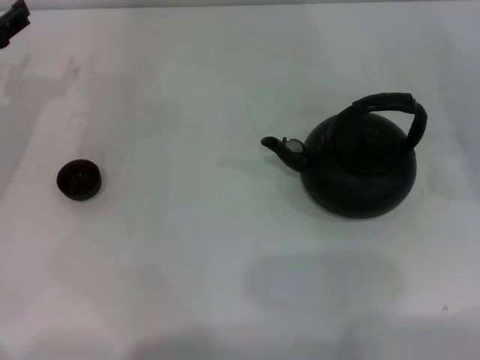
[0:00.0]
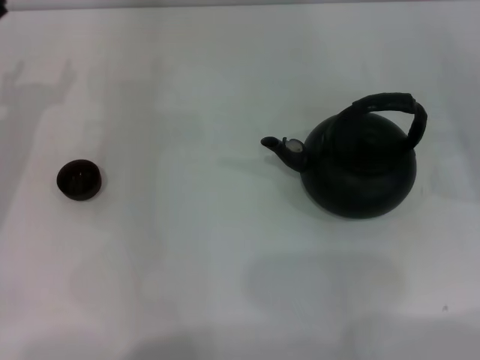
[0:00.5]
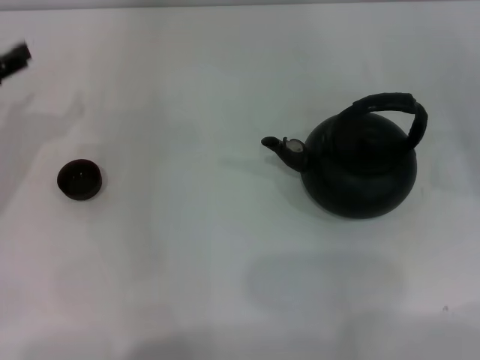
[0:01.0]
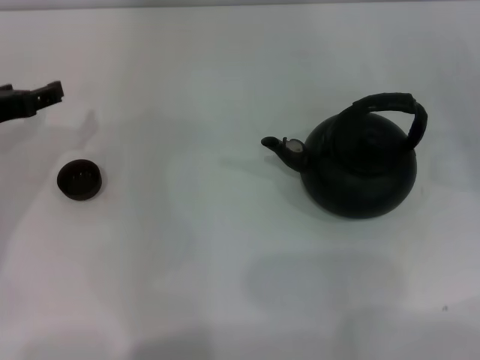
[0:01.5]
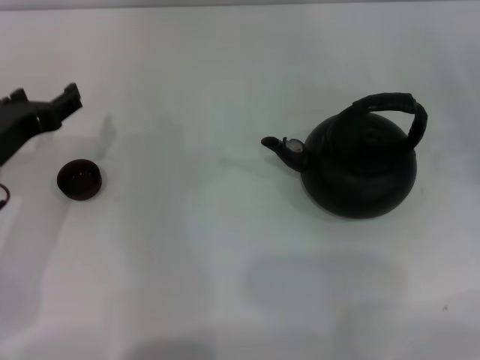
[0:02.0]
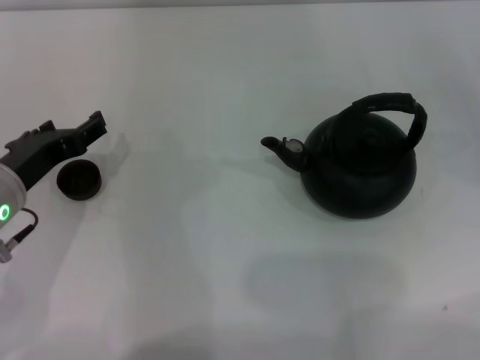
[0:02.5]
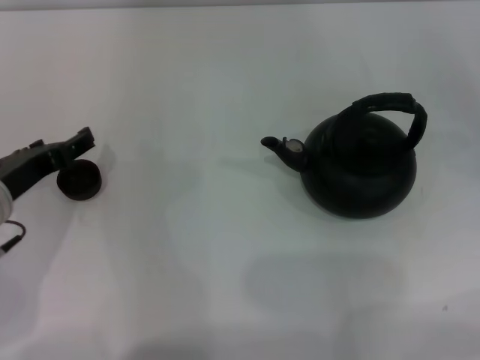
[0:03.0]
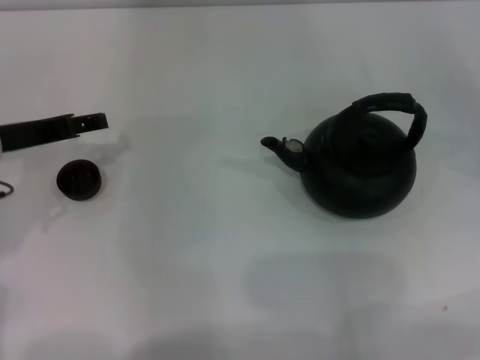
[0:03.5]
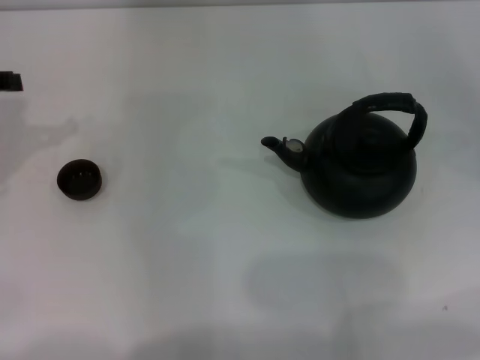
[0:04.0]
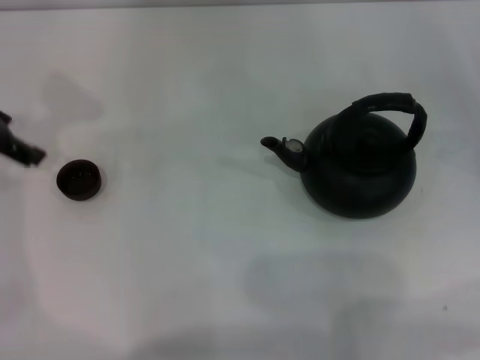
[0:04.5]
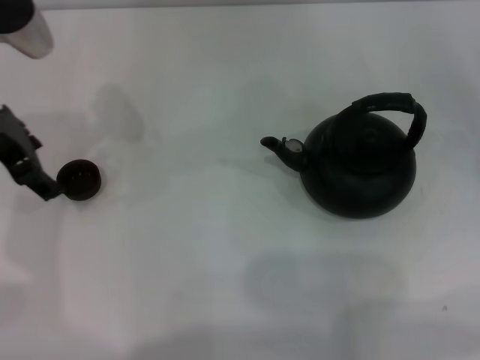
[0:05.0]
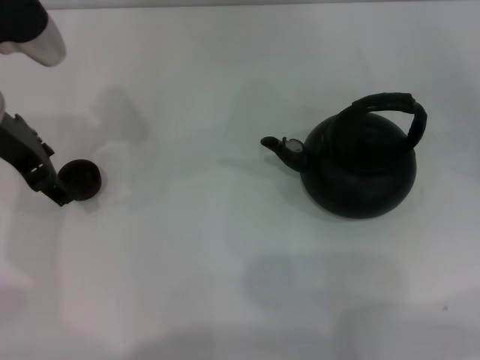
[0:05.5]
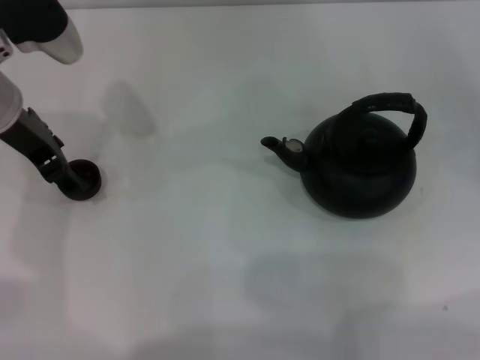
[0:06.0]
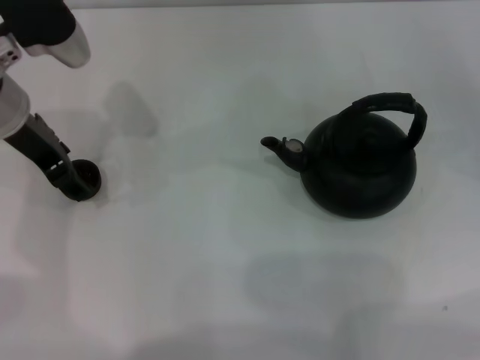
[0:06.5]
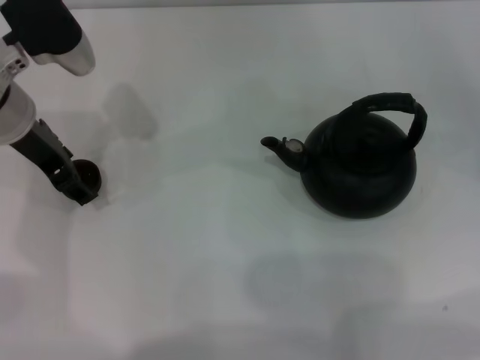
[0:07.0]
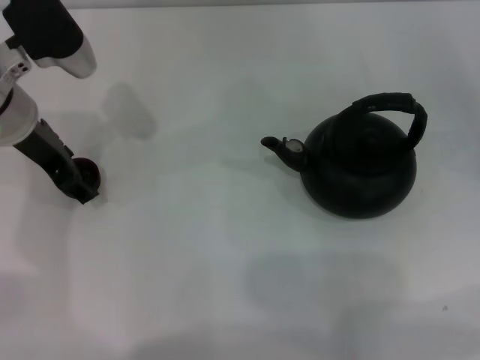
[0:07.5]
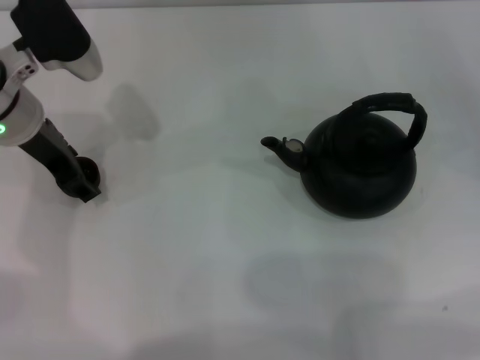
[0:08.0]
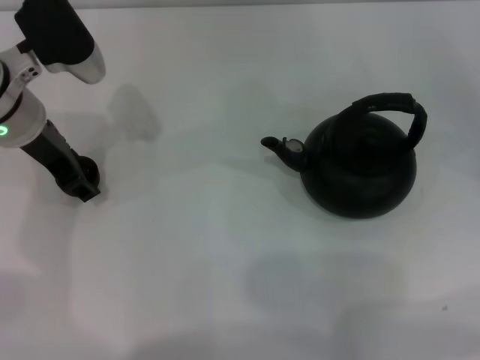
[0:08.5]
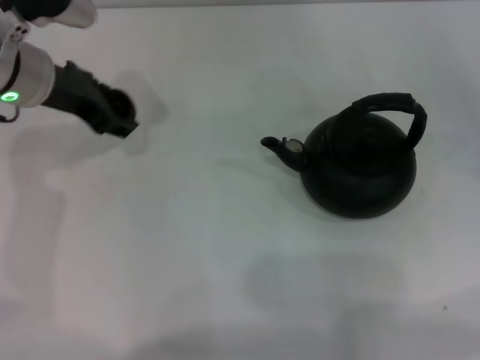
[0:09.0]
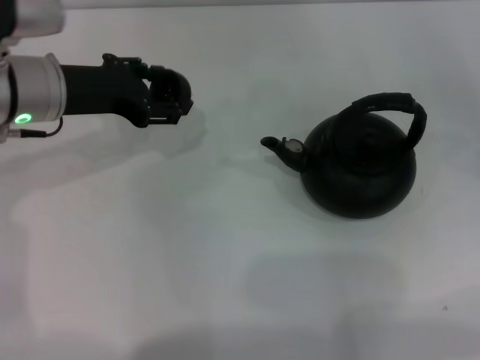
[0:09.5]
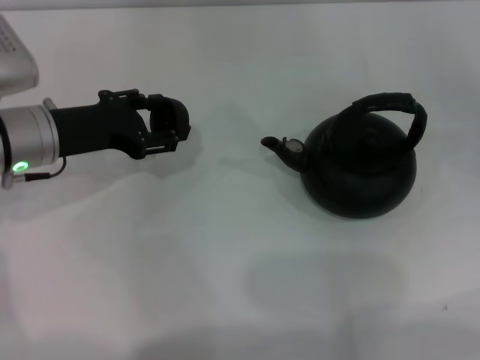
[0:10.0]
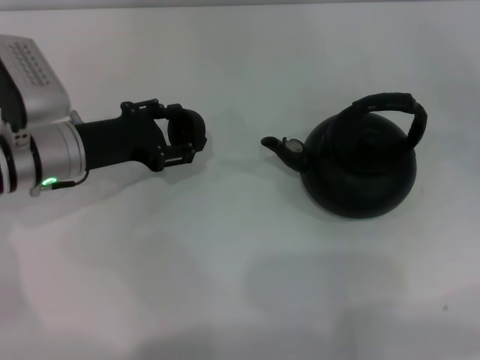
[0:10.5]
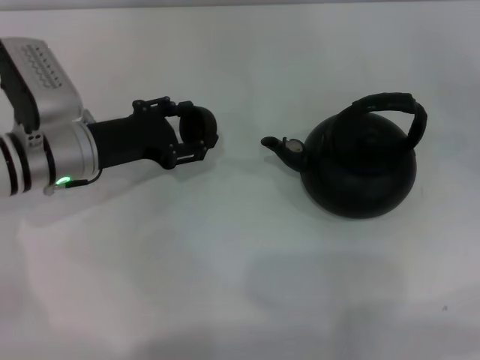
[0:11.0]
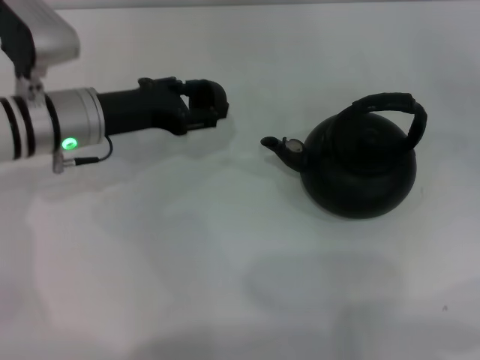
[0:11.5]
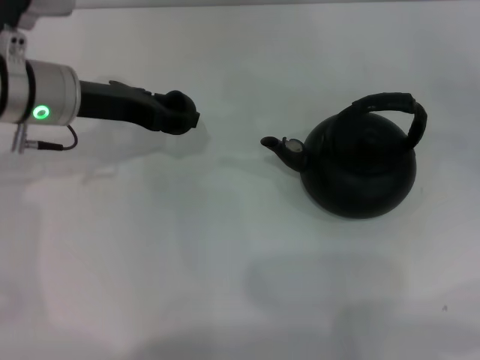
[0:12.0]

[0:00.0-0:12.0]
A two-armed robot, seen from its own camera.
Task of the whole recording: Grasp the handle of the teapot with one hand and pour tea into the teacup.
Step, 0:00.0 to 0:08.5: Pick up the teacup with the left gripper.
0:00.0 to 0:02.0: The left gripper travels backward and to the right by roughly 10 cm.
0:02.0 to 0:04.0: The left gripper moves upward and to the left, about 10 cm.
0:04.0 to 0:06.0: The left gripper moves to the right, some 10 cm.
0:06.0 to 0:08.0: The left gripper closes up.
0:08.0 to 0:10.0: The left gripper ends up approximately 5 cm from where it was.
0:10.0 to 0:12.0: The left gripper moves approximately 5 cm.

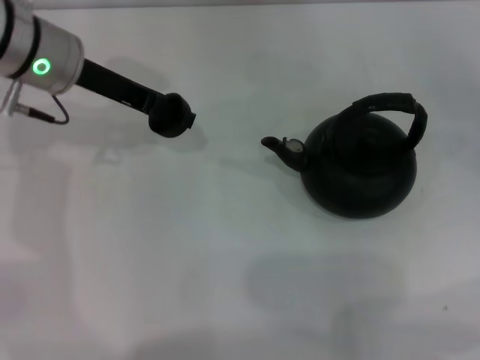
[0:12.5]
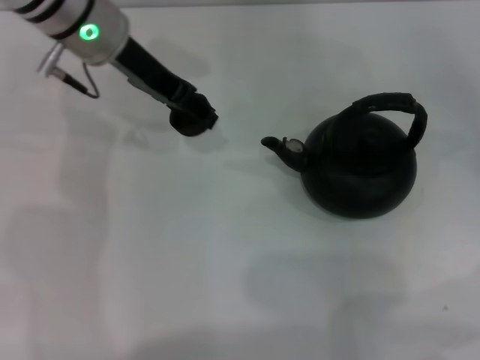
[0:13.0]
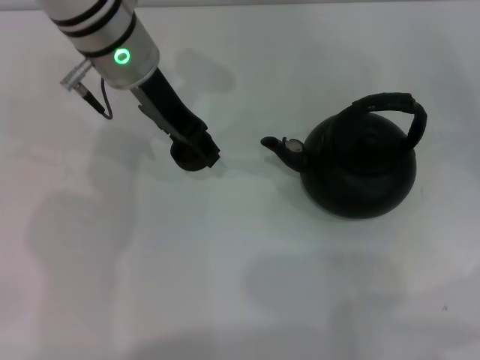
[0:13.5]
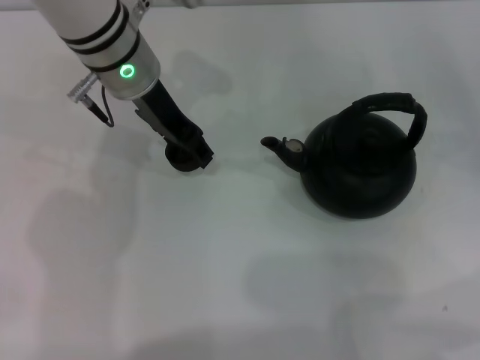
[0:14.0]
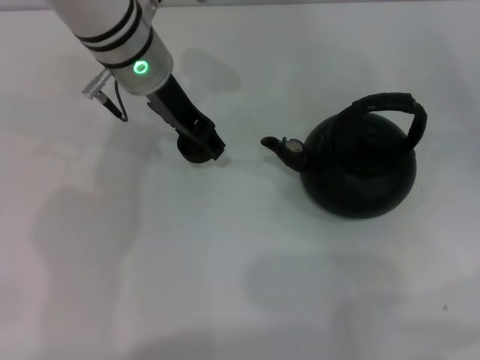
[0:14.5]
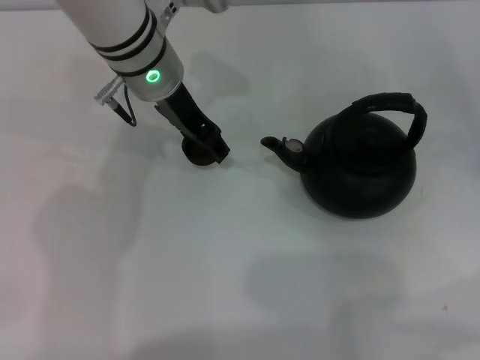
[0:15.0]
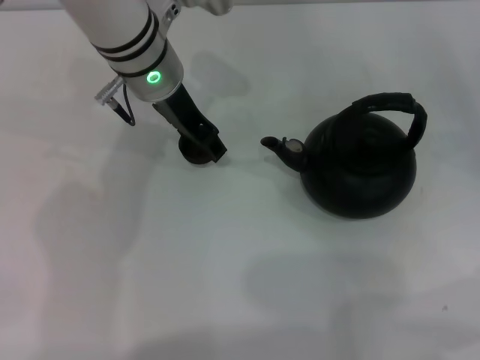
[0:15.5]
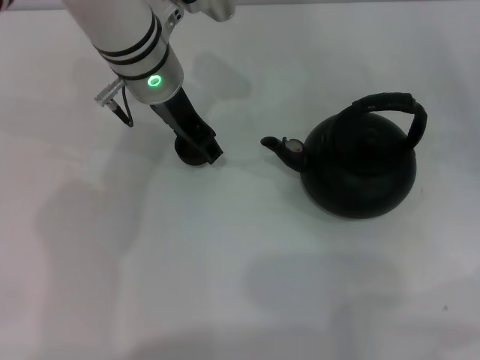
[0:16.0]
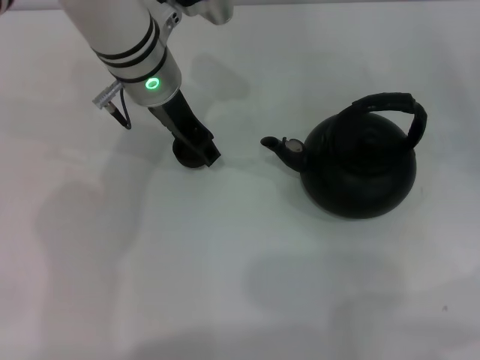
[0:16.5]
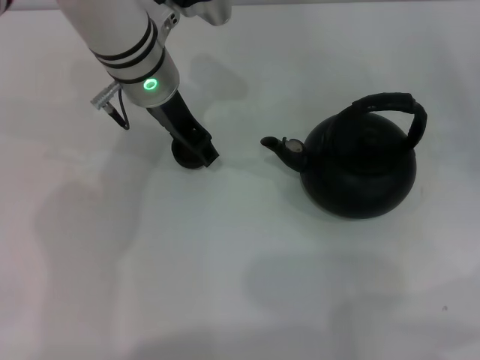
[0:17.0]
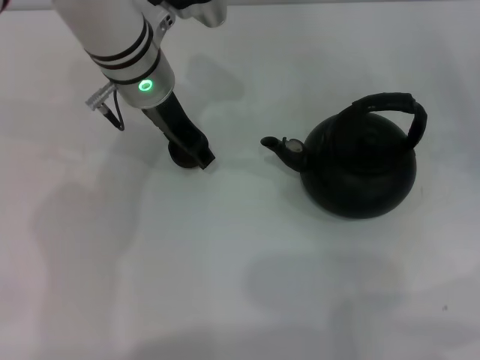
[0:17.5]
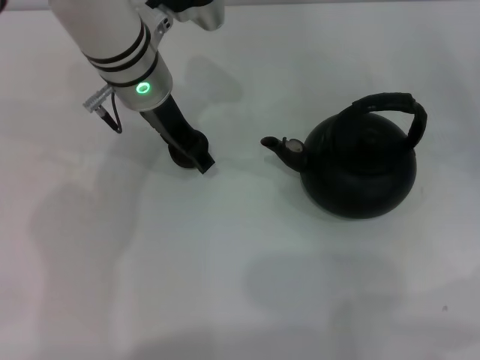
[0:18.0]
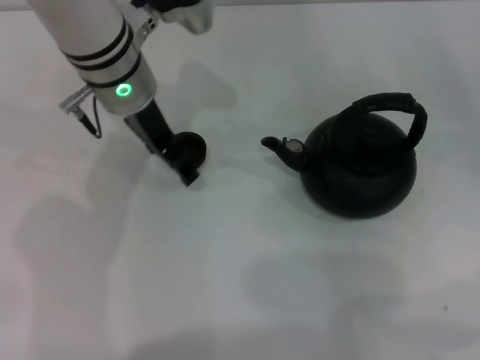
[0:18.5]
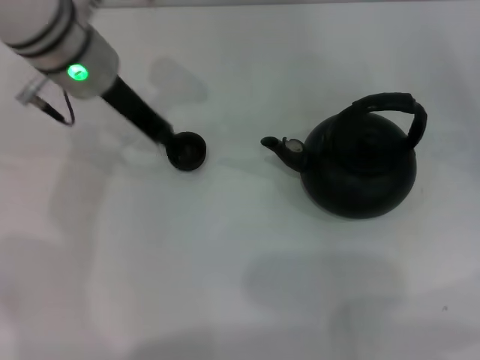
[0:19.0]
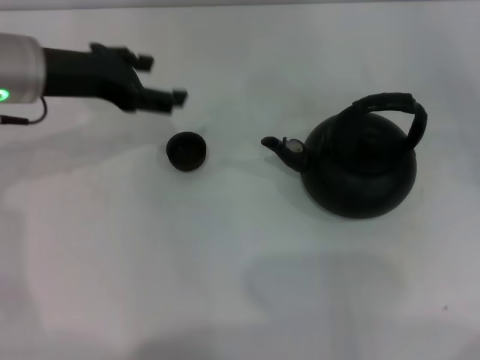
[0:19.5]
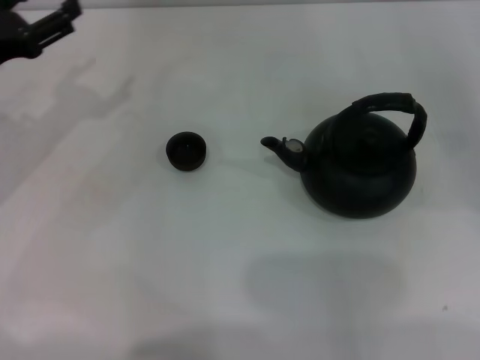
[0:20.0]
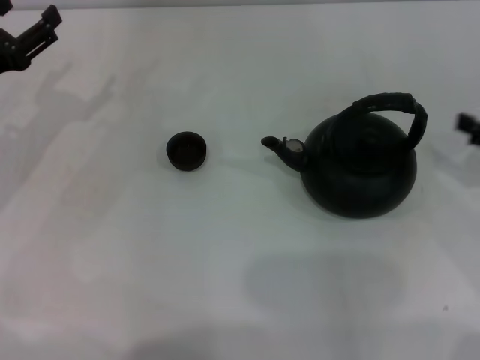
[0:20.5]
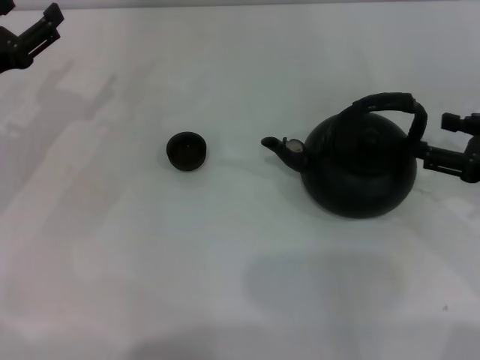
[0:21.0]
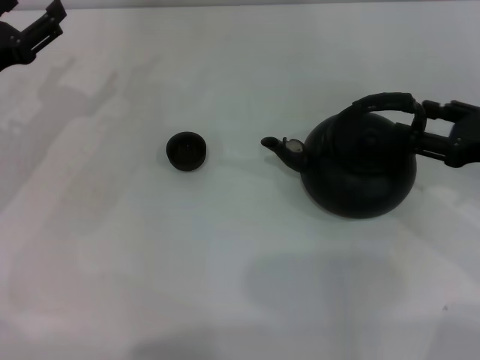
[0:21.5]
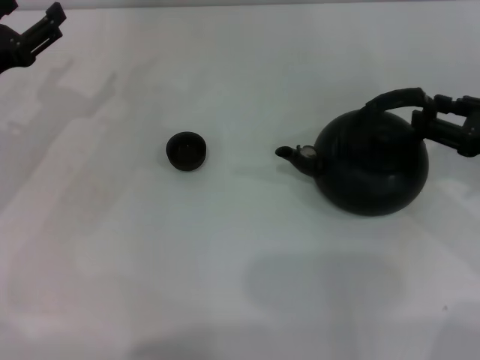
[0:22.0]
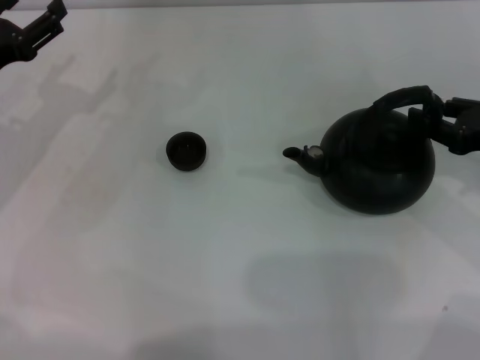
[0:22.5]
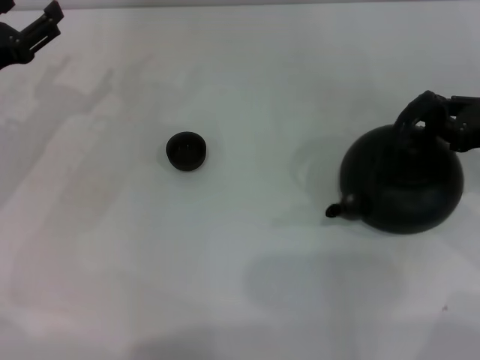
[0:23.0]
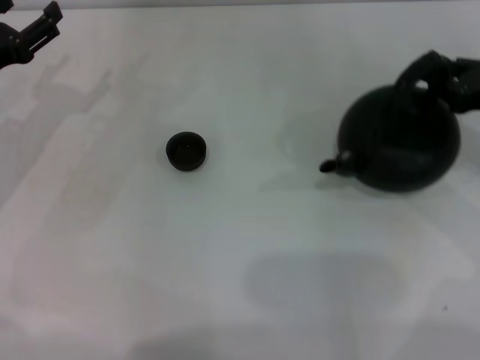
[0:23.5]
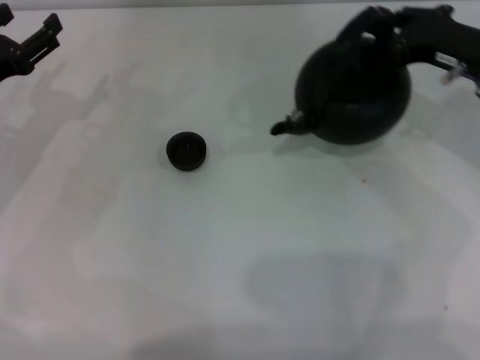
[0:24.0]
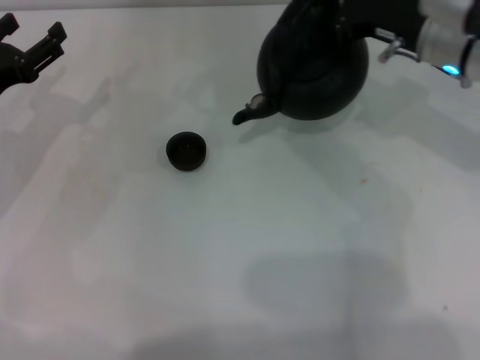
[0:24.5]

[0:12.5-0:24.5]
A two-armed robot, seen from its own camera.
Task of the whole recording: Grasp the handle of the teapot with one hand and pour tea into the teacup.
Step, 0:12.5 to 0:19.0: Place the teacup in the center of view with the left gripper.
Step, 0:20.0 to 0:23.5: Pick up the teapot with the right gripper.
0:12.5 to 0:14.5: The left gripper heads to the right, covering about 10 cm.
0:14.5 to 0:16.5: The grippers stay close to where they were, moving slightly.
0:16.5 to 0:18.5: The left gripper opens.
0:18.5 to 0:20.5: The left gripper moves to the left, roughly 20 cm. The right gripper moves upward, backward and to the left, about 10 cm.
0:20.5 to 0:22.5: The right gripper closes up.
0:22.5 to 0:24.5: The right gripper goes roughly 15 cm to the left and forward, and closes its fingers.

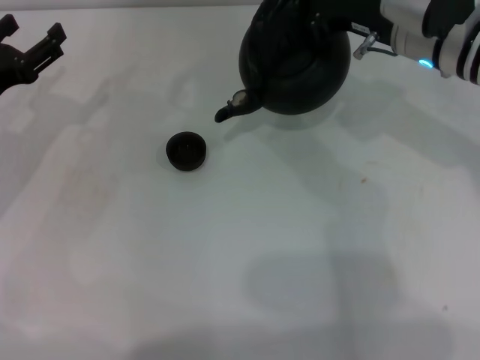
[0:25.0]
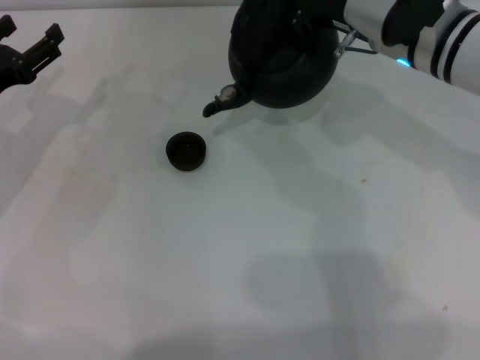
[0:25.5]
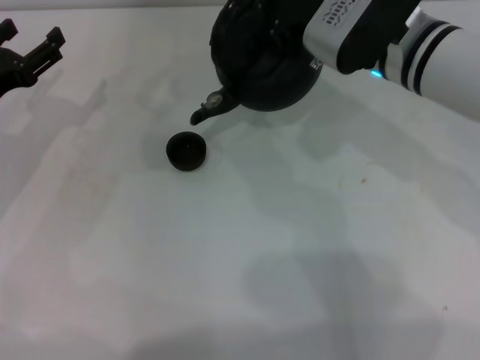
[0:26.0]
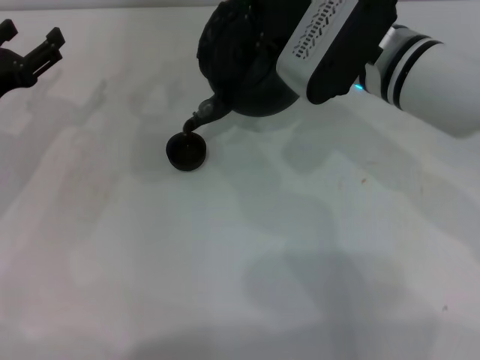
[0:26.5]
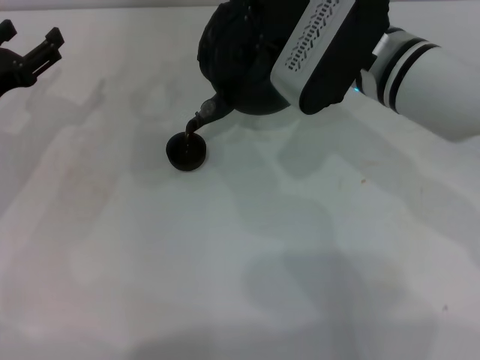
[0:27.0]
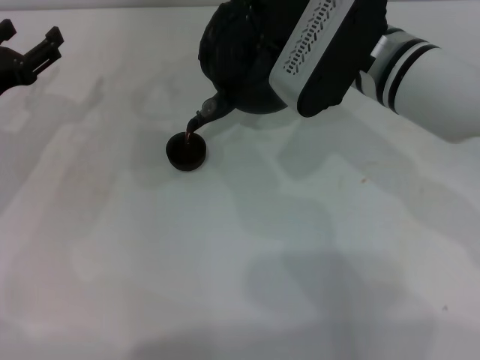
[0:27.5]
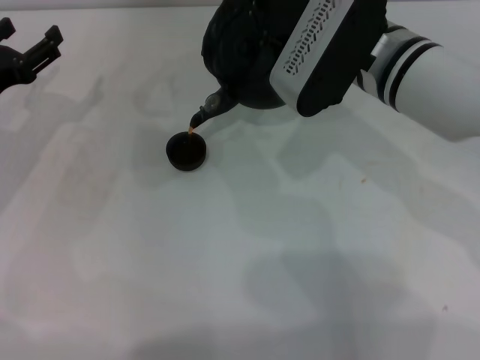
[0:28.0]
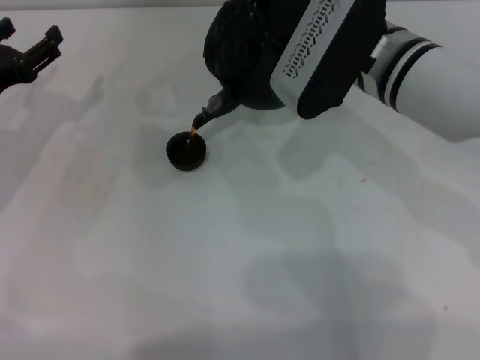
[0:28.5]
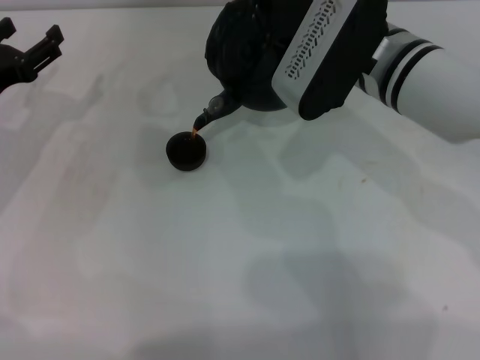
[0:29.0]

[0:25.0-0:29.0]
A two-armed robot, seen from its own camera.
Task of the whole recording: Grasp the handle of the teapot with one hand and pour tea into the teacup.
0:25.0 to 0:27.0: The right gripper goes about 5 cm to the left.
0:27.0 to 0:29.0: Both grippers stay put.
